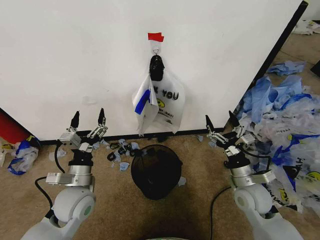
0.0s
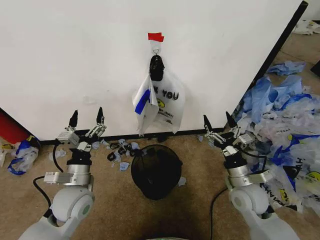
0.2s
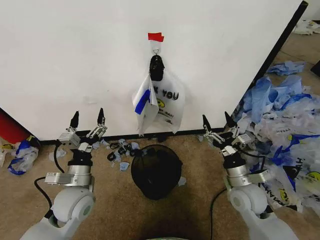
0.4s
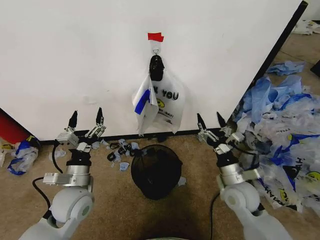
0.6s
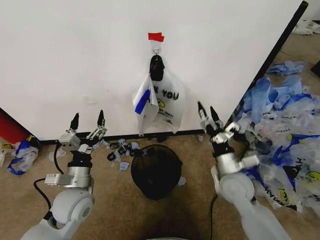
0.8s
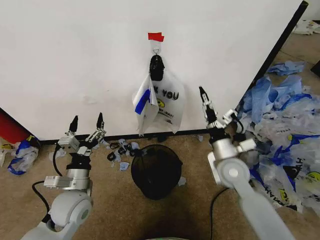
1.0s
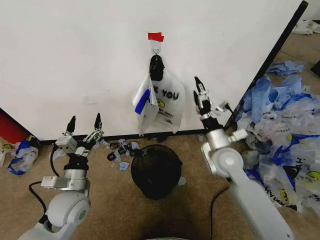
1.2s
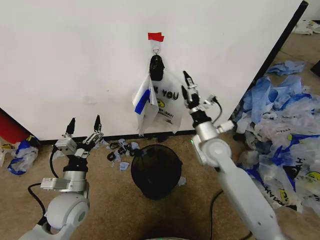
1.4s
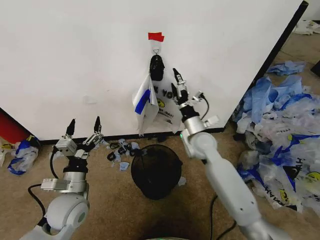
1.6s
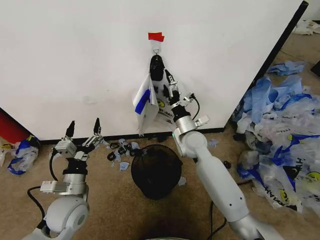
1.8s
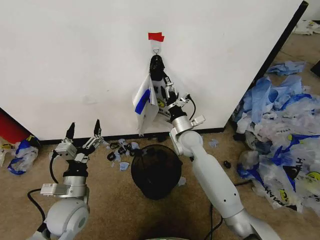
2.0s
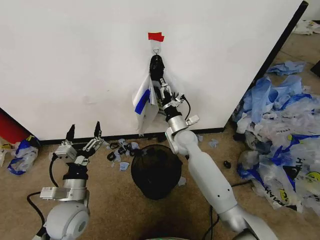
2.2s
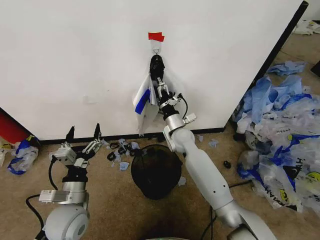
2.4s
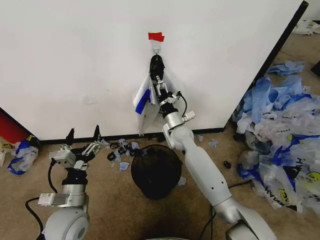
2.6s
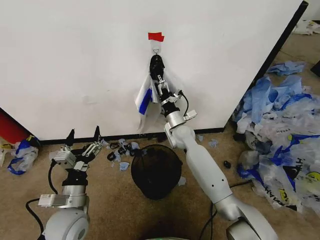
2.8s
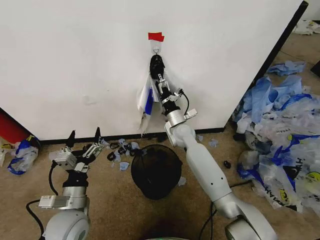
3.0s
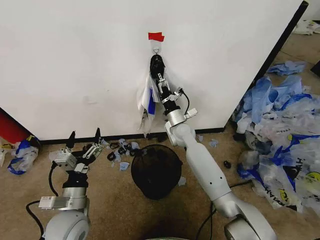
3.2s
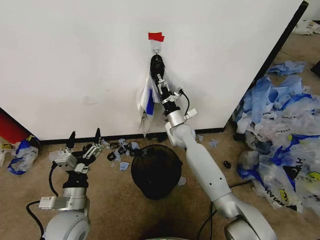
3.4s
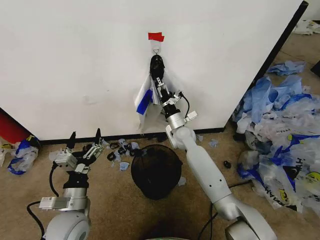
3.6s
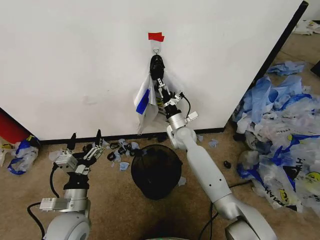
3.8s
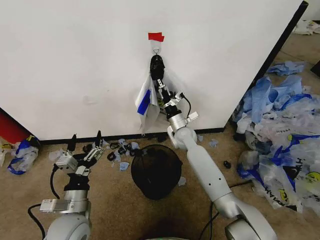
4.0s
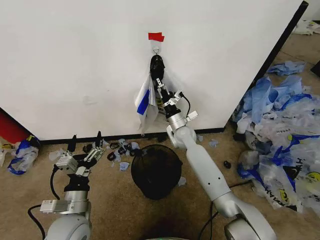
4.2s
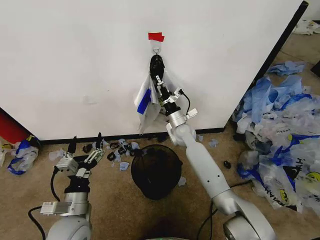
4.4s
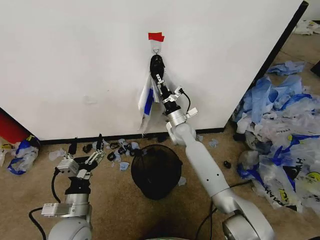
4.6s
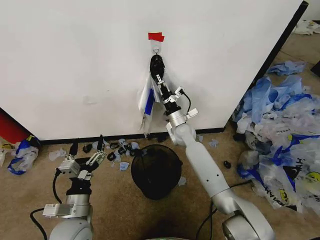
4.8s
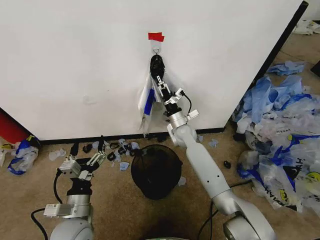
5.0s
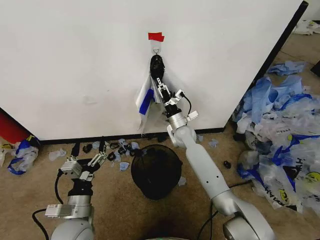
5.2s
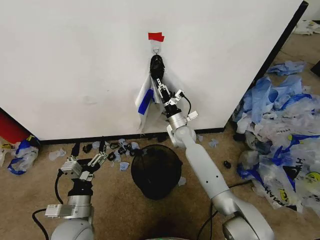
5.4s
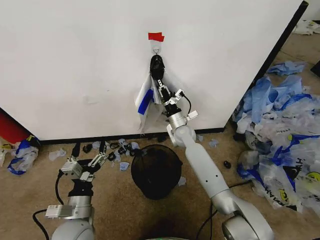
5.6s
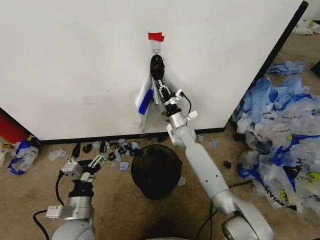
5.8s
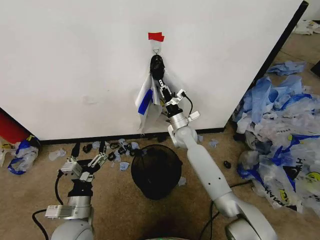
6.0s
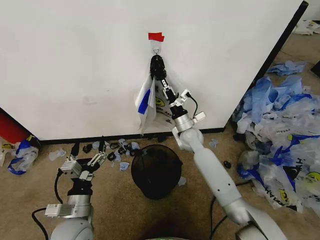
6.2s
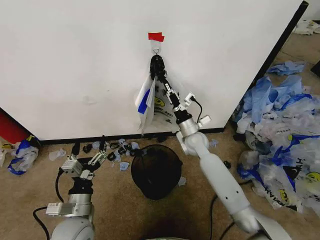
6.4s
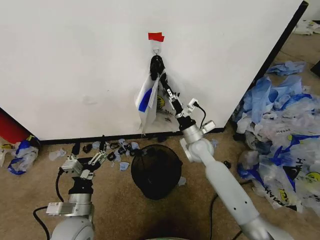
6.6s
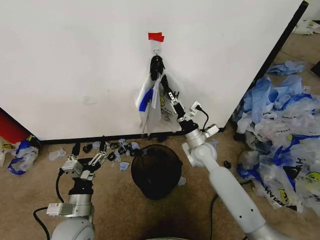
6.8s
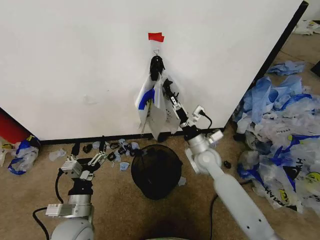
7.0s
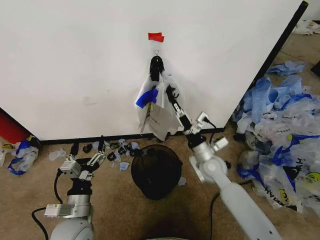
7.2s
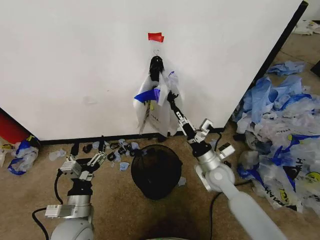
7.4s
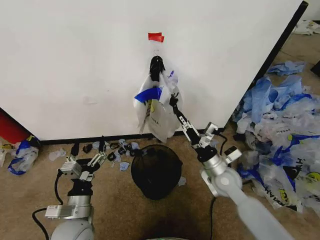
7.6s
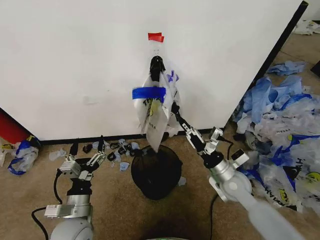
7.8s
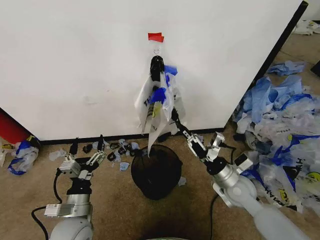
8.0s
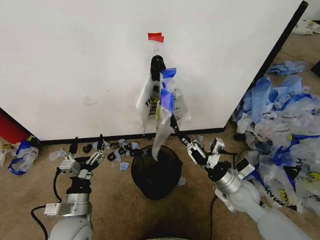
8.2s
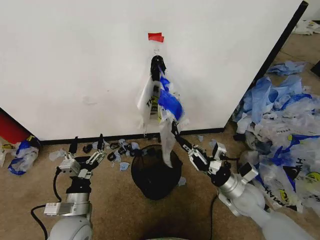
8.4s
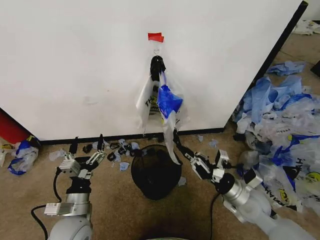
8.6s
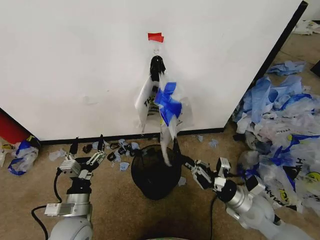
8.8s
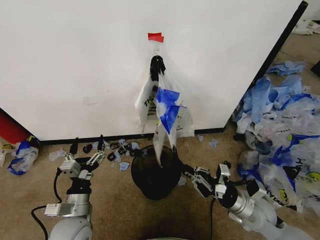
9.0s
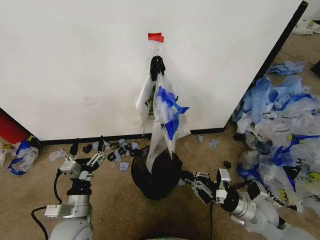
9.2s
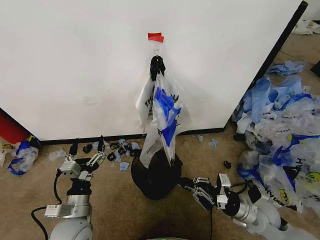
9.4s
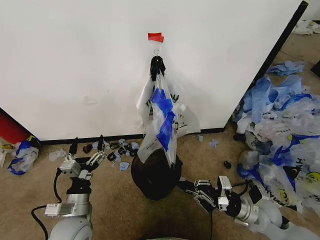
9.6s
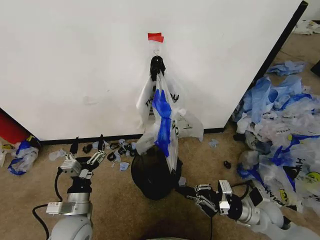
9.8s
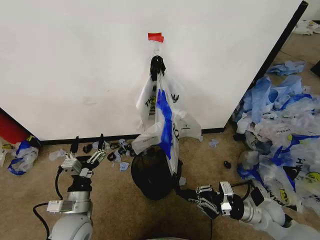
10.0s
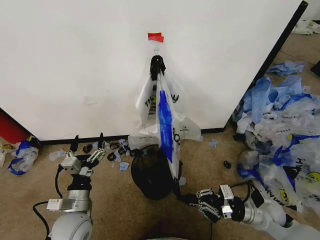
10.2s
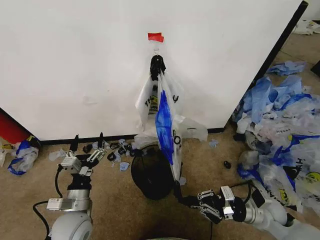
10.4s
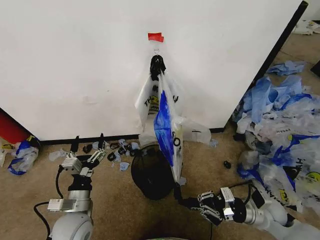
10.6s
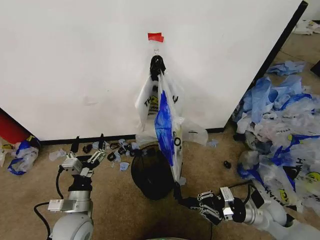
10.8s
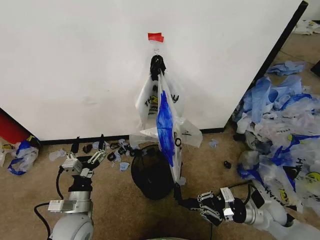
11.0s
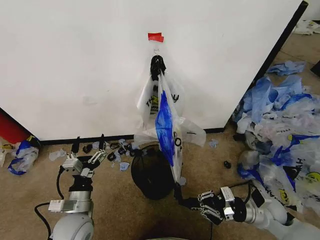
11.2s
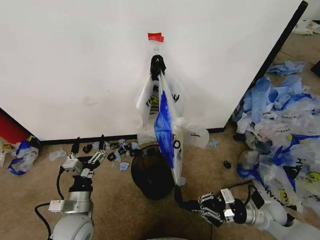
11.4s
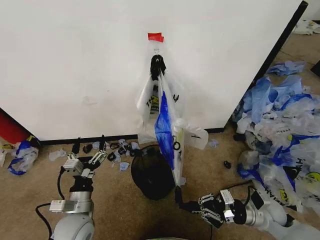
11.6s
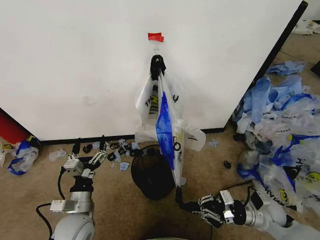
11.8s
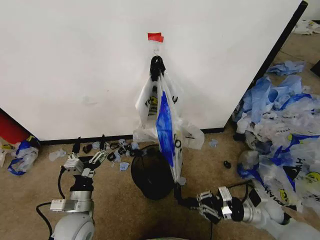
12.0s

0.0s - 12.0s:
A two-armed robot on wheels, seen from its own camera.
Task of the whole recording: Pick up the garbage bag from the wall and place it over the trash bin.
1.6s - 3.0s: The right gripper is displaced forward by some 5 cm.
3.0s - 4.4s: The grippers make only small movements.
4.4s - 6.0s: The right gripper closes its fingers.
6.0s - 7.6s: The right gripper goes roughly 20 cm backward and to the right.
7.6s - 9.0s: The right gripper goes about 10 cm backward and to the right.
10.4s - 12.0s: The grippers move only a little.

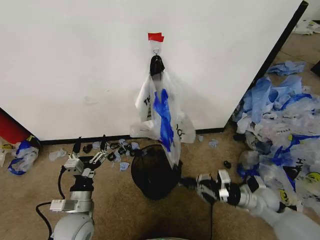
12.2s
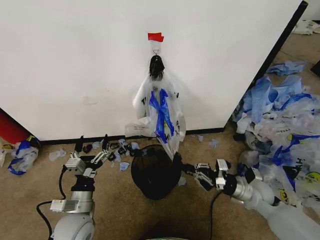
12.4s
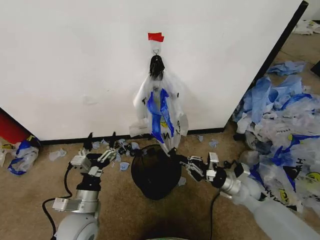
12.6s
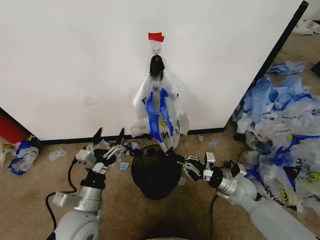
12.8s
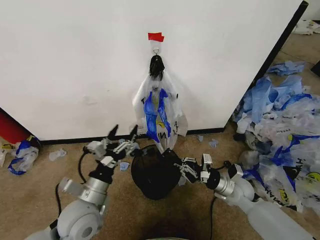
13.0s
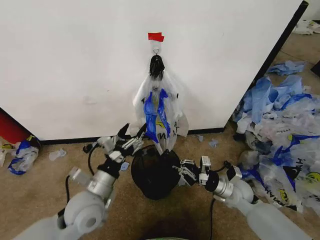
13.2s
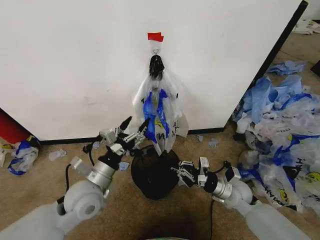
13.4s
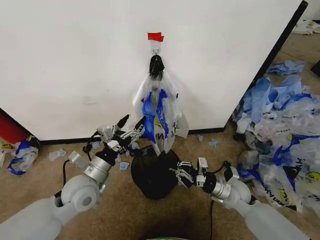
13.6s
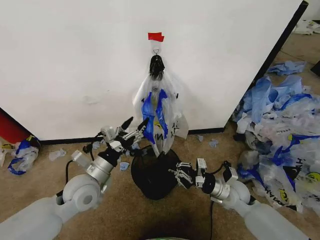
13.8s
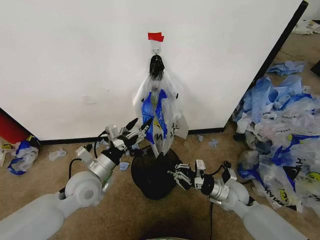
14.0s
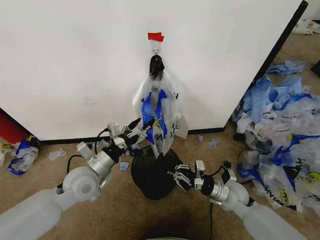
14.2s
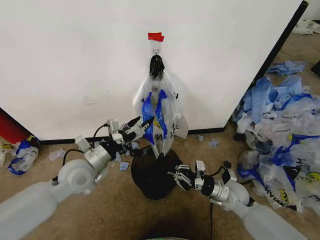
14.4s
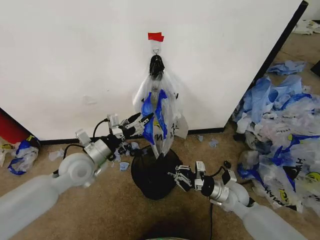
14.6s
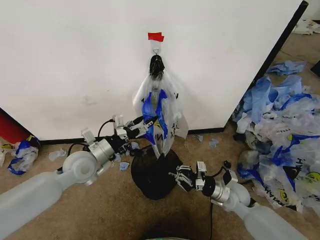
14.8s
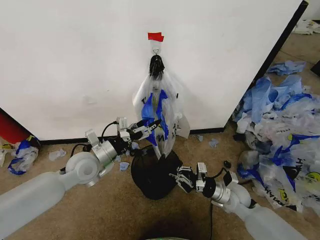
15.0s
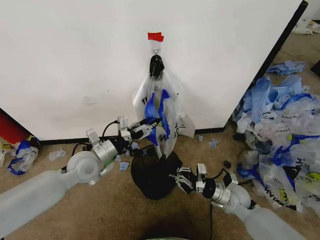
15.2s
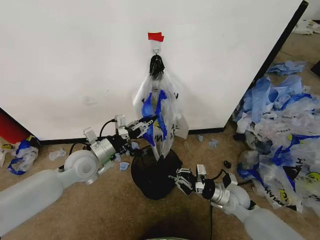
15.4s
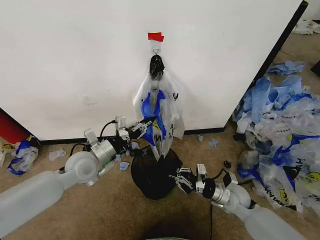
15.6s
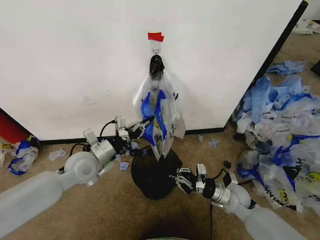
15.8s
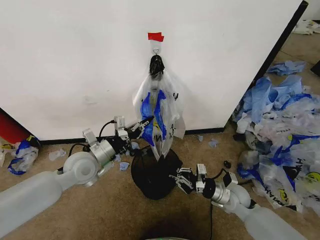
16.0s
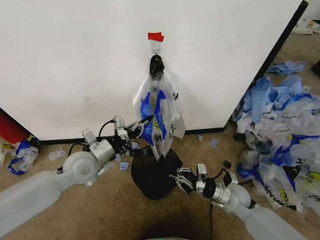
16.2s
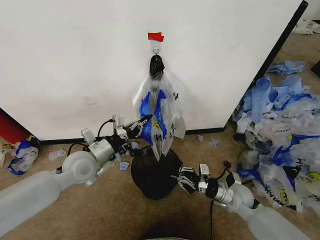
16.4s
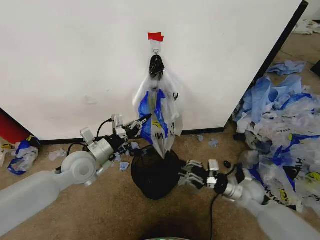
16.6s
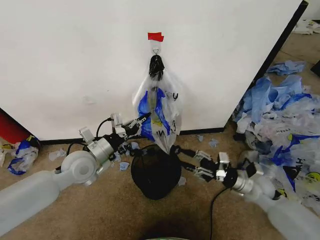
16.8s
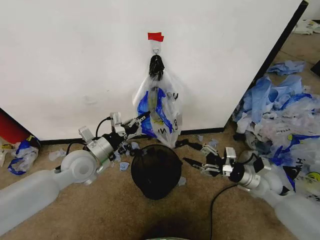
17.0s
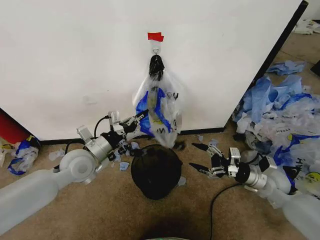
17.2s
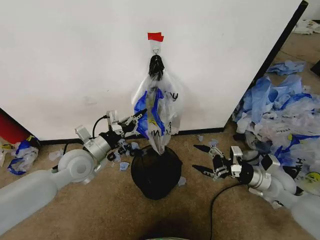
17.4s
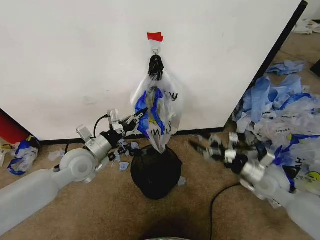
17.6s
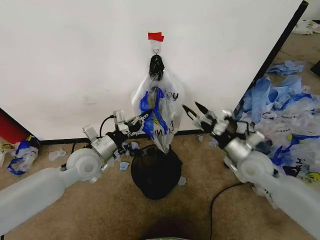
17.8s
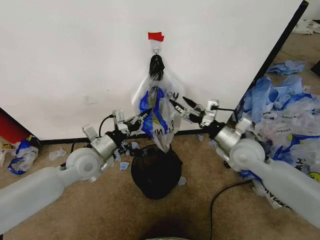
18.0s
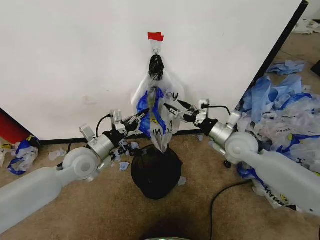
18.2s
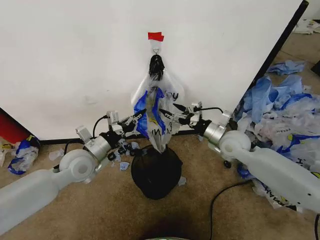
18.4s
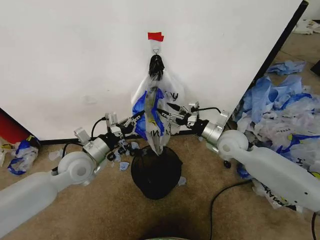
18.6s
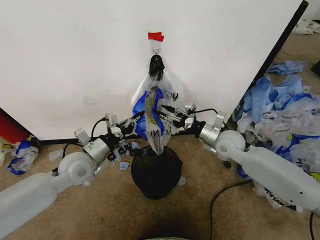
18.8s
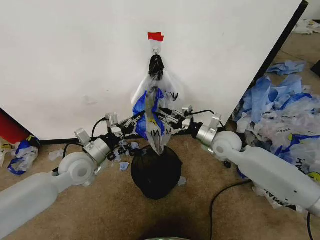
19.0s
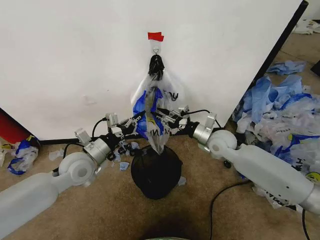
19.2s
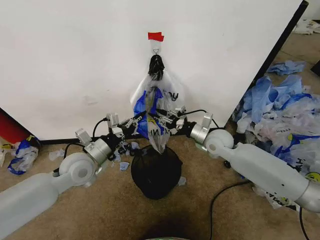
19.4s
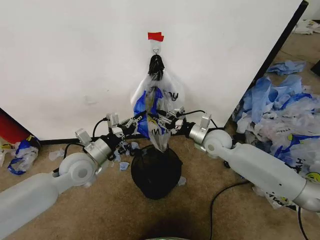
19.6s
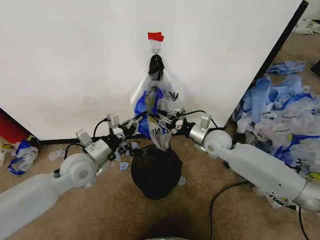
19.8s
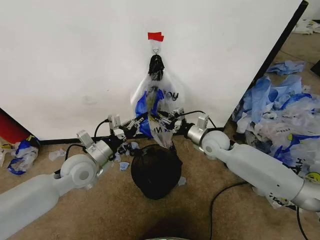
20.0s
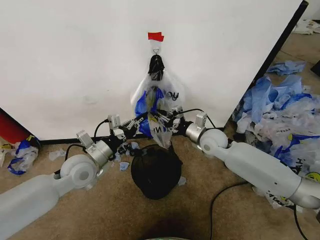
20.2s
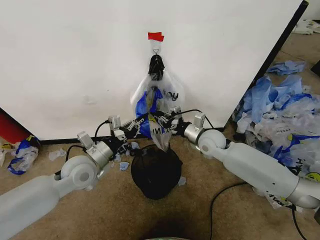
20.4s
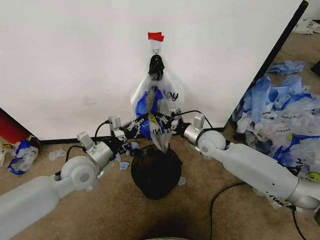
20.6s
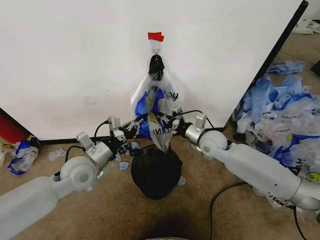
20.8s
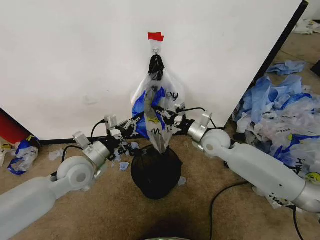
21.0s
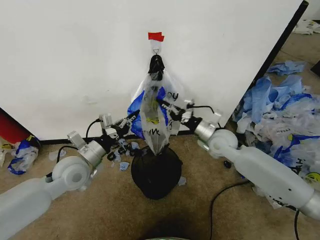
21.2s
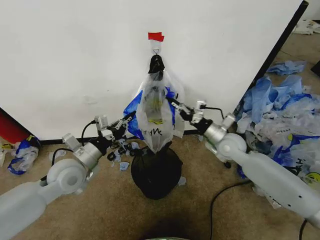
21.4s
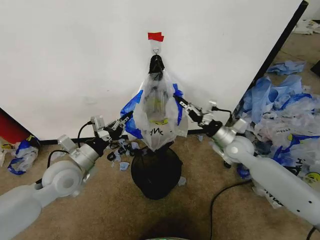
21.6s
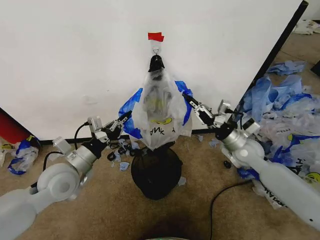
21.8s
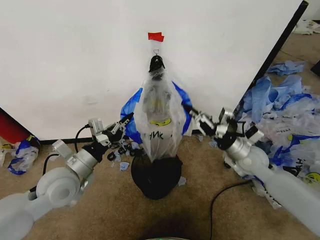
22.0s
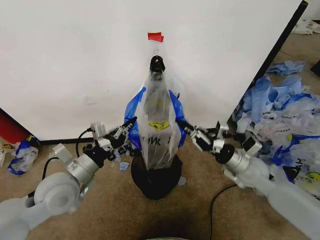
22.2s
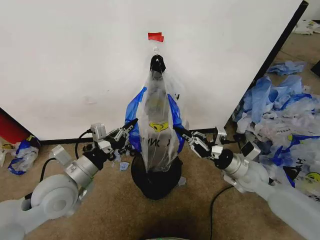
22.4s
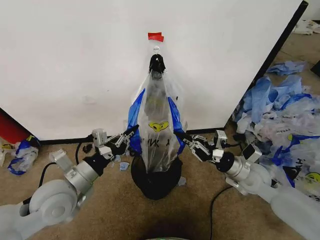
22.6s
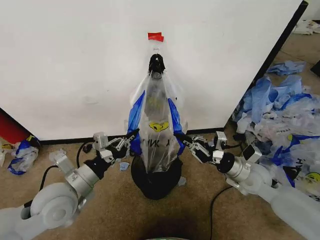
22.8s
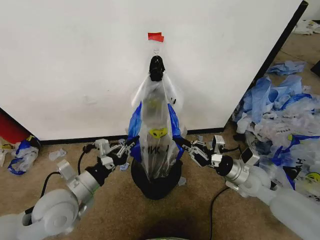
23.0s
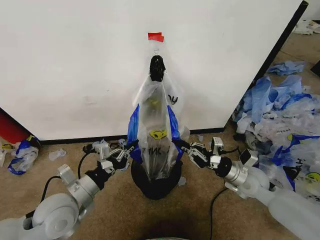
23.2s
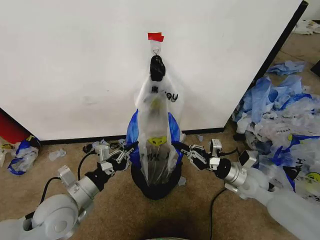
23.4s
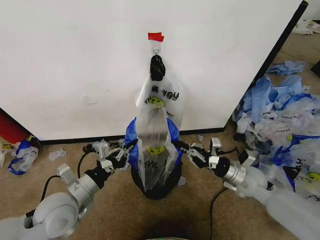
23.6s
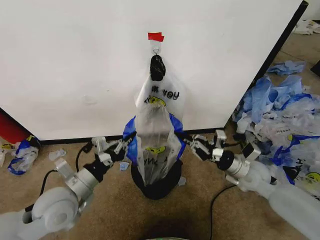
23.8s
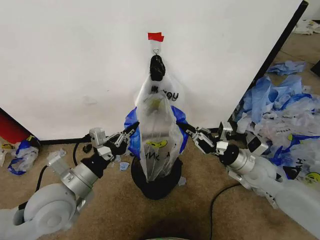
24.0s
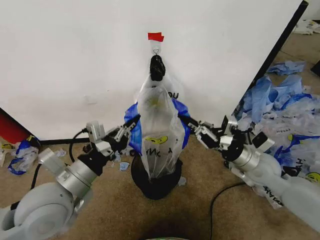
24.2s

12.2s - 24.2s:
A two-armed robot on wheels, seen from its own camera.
Task of the whole recording: Pick up the garbage bag from the wall and place it over the trash bin.
12.2s - 13.8s: The left gripper shifts approximately 10 cm upward and forward; the right gripper travels to the left by approximately 5 cm.
13.8s - 15.2s: The left gripper heads forward, covering about 5 cm.
15.2s - 16.6s: The left gripper closes up.
16.6s - 18.2s: The right gripper goes roughly 20 cm upward and forward, and opens its fingers.
18.2s - 19.8s: The right gripper travels forward by roughly 5 cm, and closes its fingers.
19.8s - 21.2s: The right gripper closes.
21.2s - 22.6s: The right gripper moves backward and to the right, some 15 cm; the left gripper moves backward, roughly 10 cm.
22.6s - 24.2s: The right gripper shifts roughly 5 cm upward. Meanwhile the left gripper shifts by about 5 cm.
